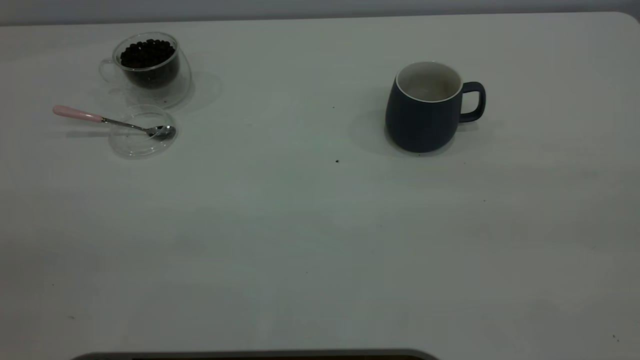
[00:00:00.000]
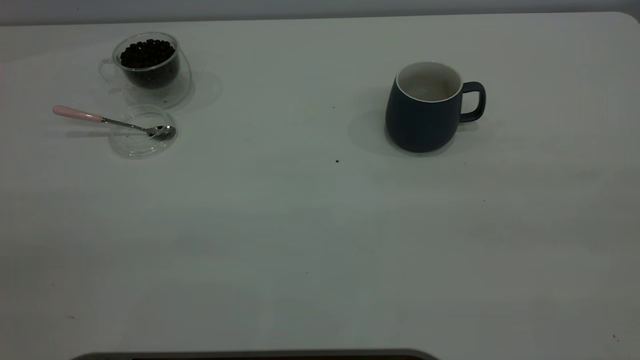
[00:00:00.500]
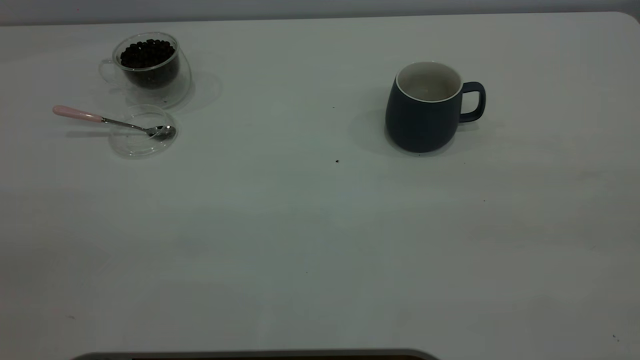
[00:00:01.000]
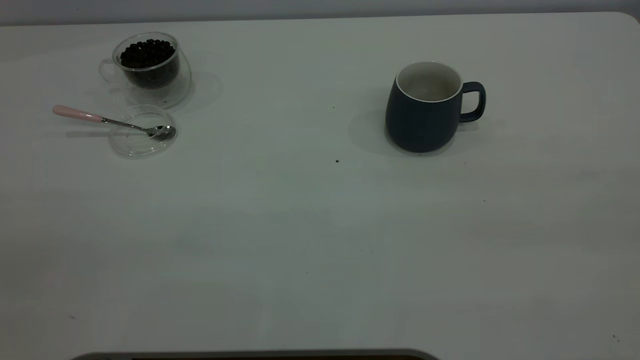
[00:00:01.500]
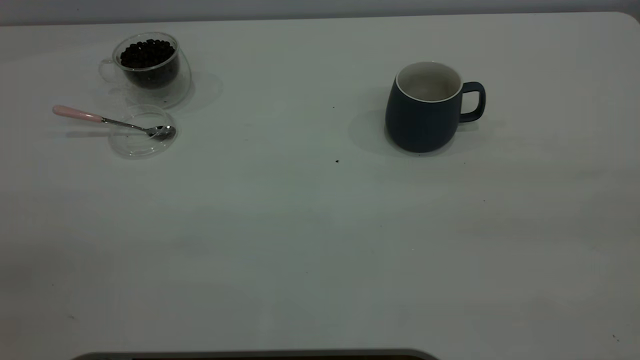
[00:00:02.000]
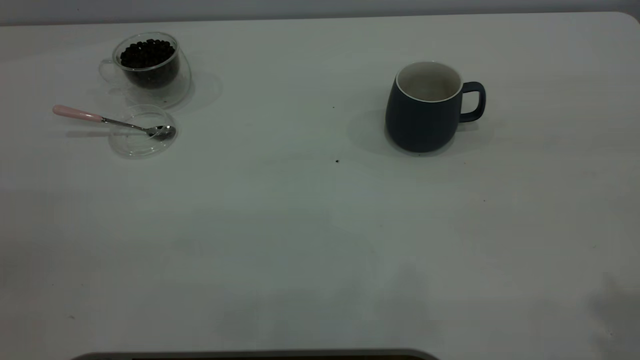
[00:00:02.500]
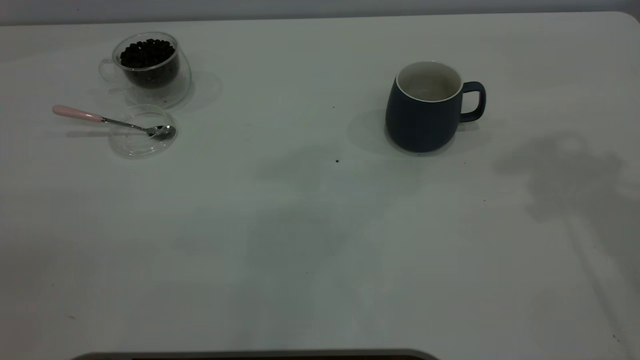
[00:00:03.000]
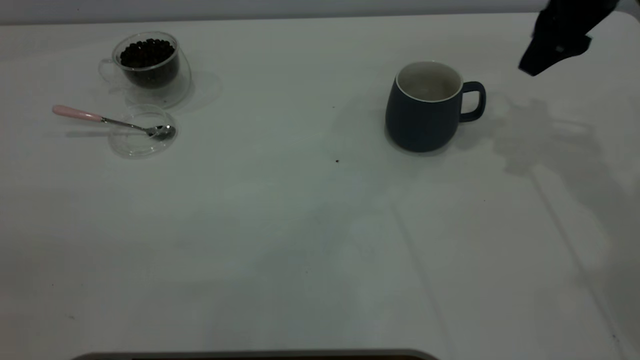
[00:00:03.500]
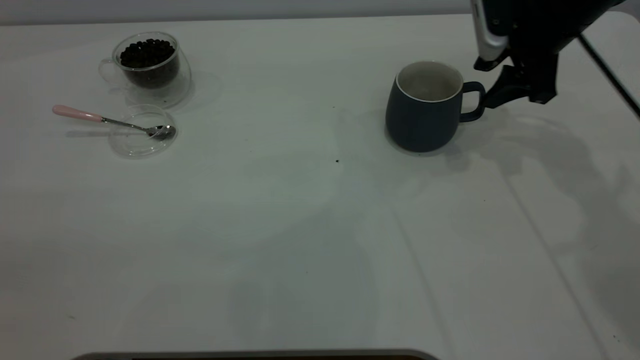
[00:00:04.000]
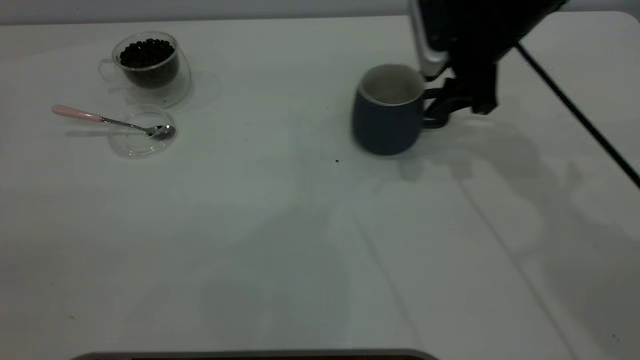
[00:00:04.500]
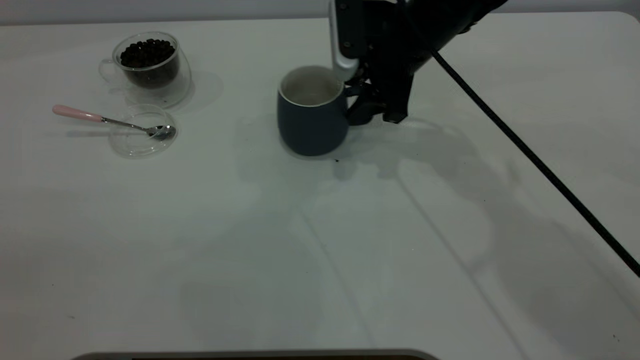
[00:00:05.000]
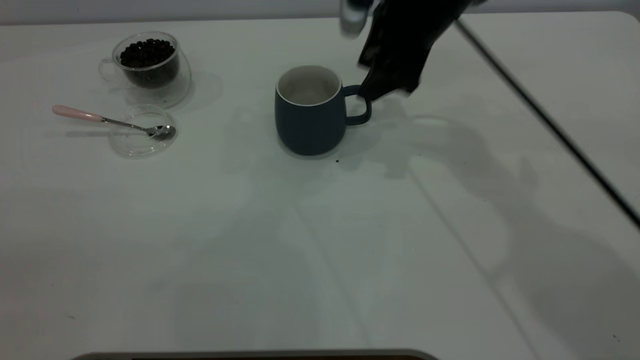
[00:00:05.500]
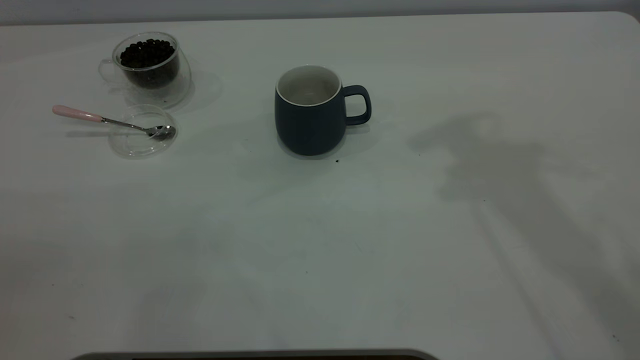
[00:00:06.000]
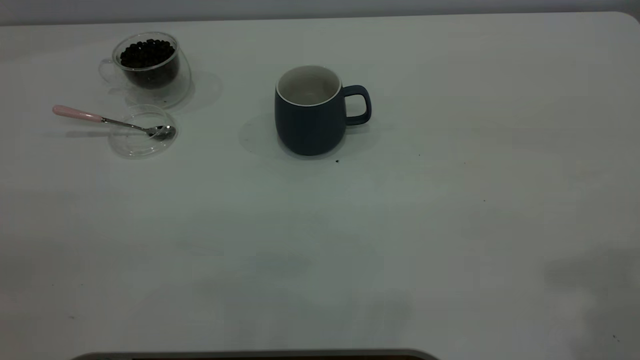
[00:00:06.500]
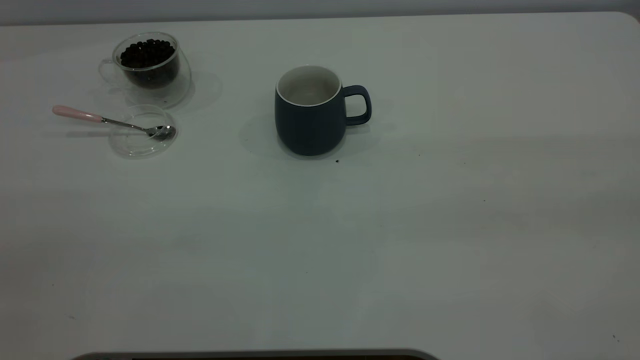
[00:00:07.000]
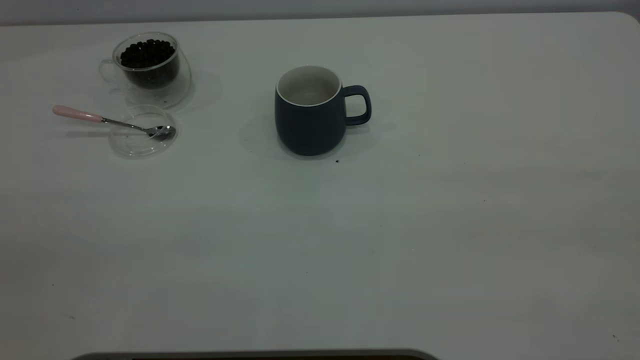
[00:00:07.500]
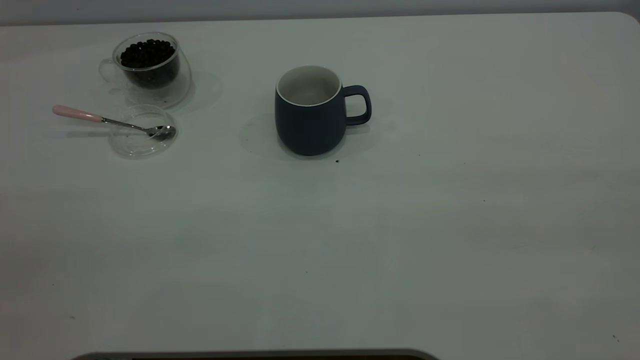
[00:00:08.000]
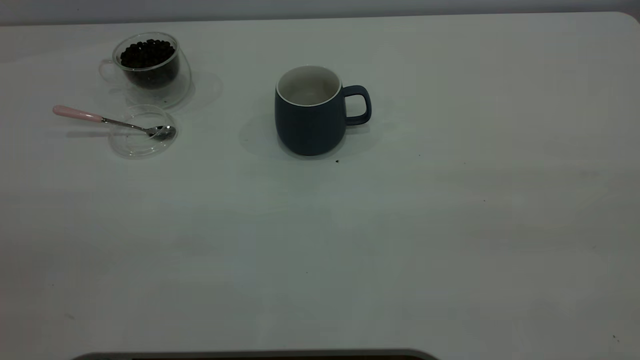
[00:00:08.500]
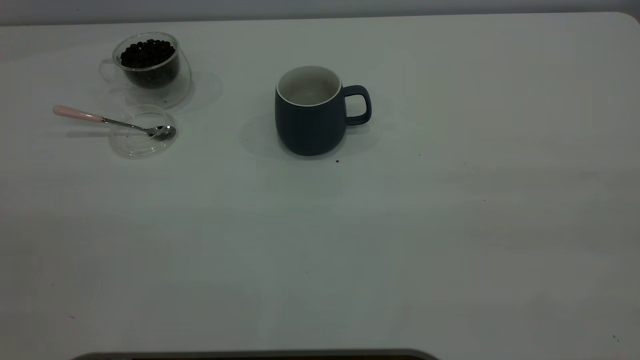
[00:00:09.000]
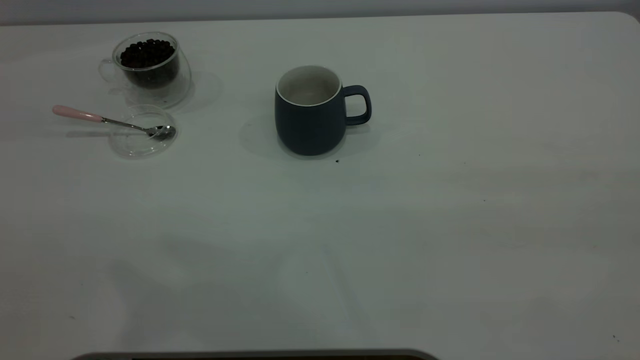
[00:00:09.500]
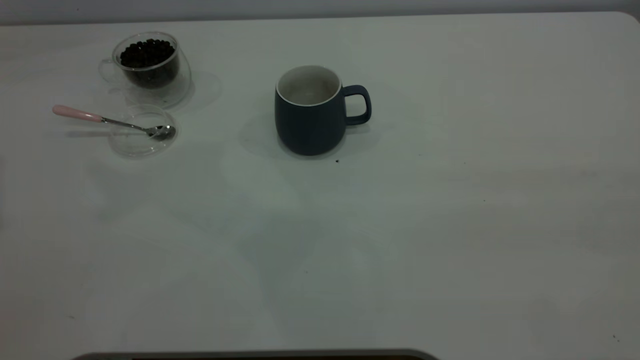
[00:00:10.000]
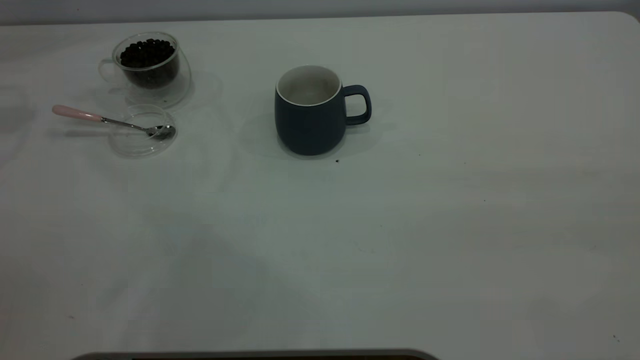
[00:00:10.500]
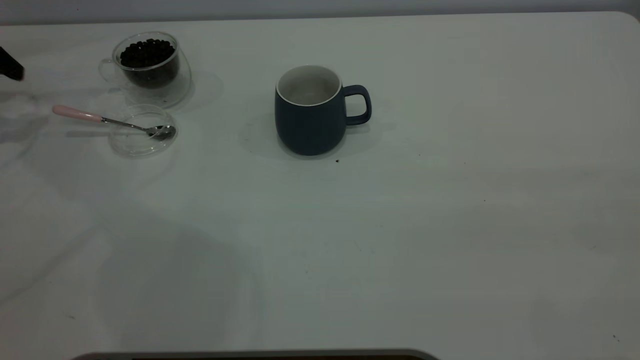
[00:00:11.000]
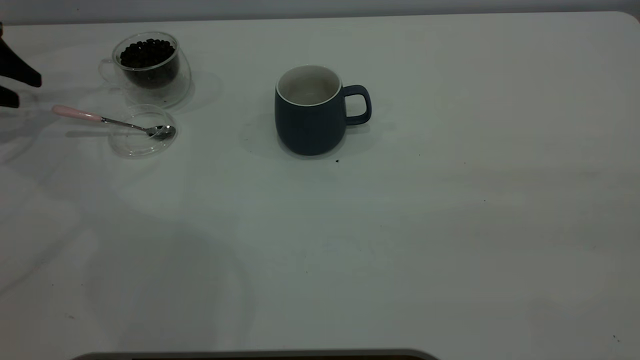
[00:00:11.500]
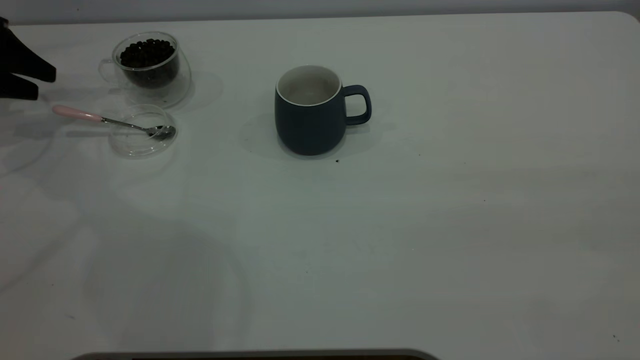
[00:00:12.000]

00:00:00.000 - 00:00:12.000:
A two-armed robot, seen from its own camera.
Task of the whole recording: the right gripper place the grey cup in the center of the table, the left gripper take the pink spoon from the cup lid and scoop out the coffee beans from the coffee cup and put them into the grey cup, the left gripper put the spoon back into the cup lid.
Step, 00:00:00.000 - 00:00:05.500: Move the cup to the center of view.
00:00:00.000 - 00:00:02.000: Both grippers stay put.
00:00:02.000 - 00:00:04.000: The right gripper shifts approximately 50 cm forward and downward.
00:00:04.000 - 00:00:06.000: The right gripper is displaced upward by about 25 cm.
00:00:10.000 - 00:00:12.000: The left gripper travels downward and forward by roughly 30 cm.

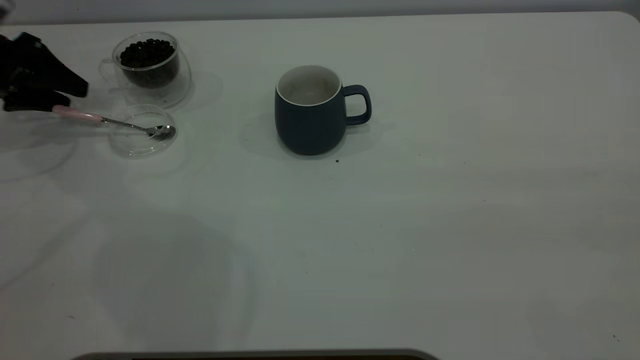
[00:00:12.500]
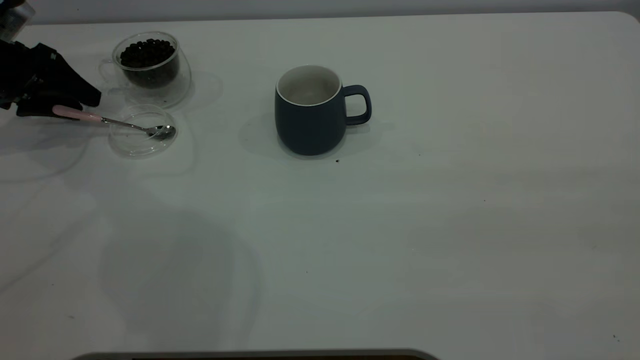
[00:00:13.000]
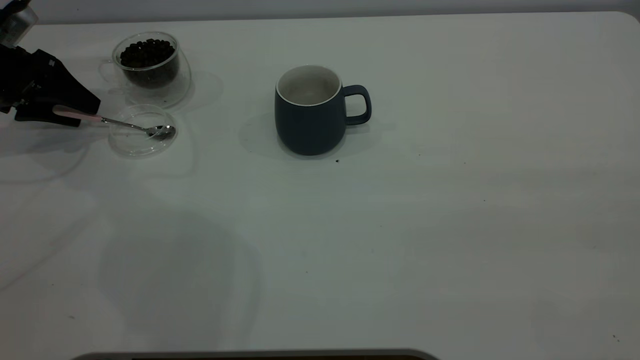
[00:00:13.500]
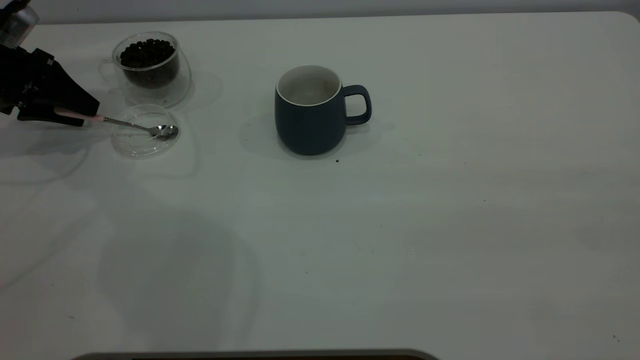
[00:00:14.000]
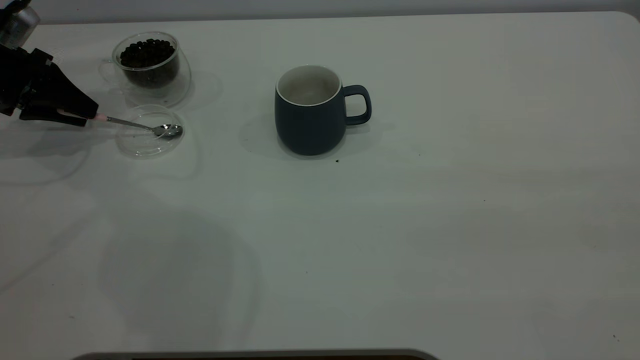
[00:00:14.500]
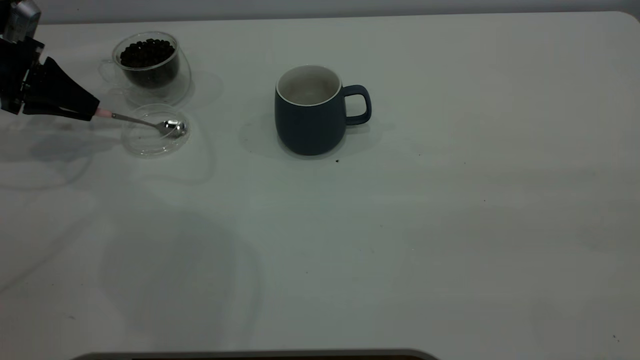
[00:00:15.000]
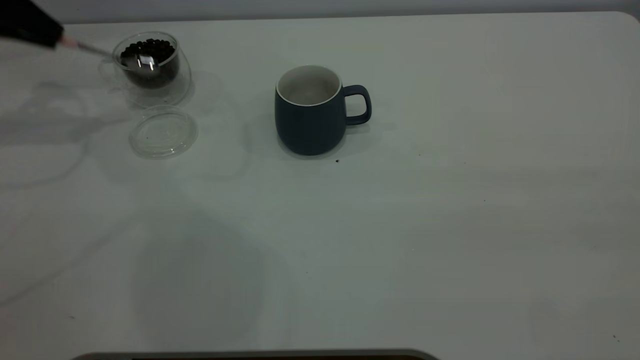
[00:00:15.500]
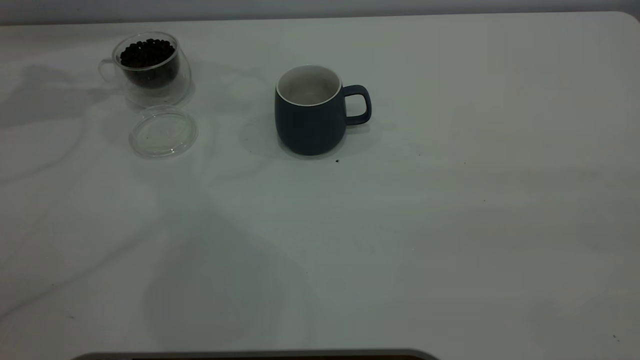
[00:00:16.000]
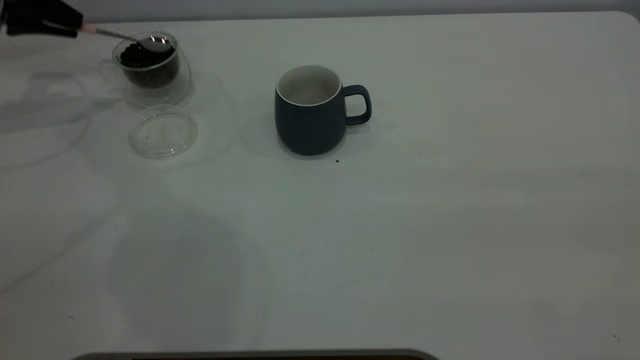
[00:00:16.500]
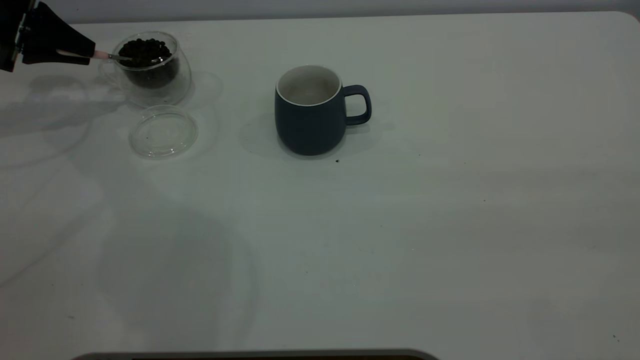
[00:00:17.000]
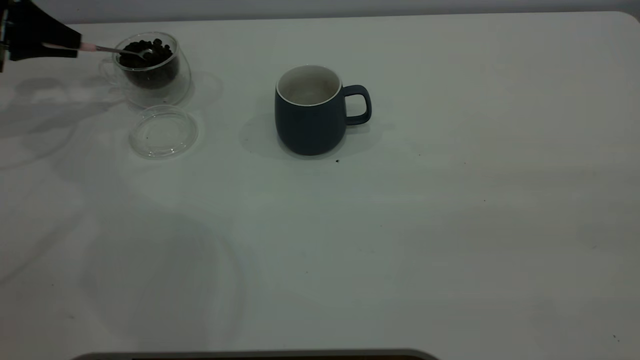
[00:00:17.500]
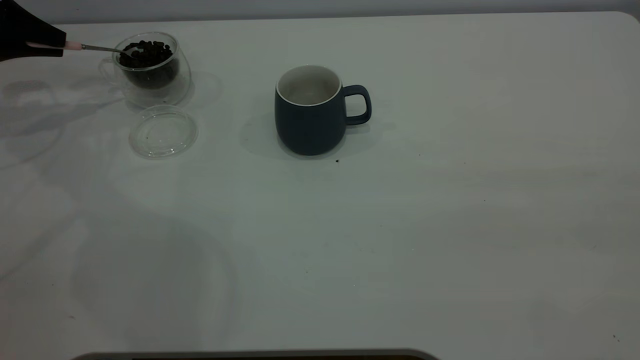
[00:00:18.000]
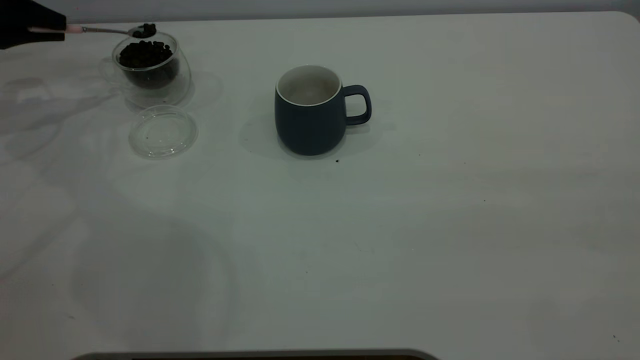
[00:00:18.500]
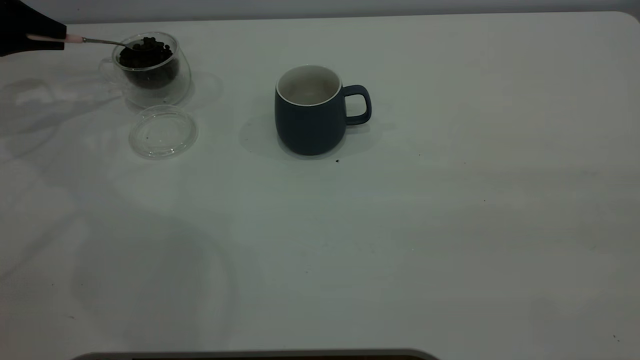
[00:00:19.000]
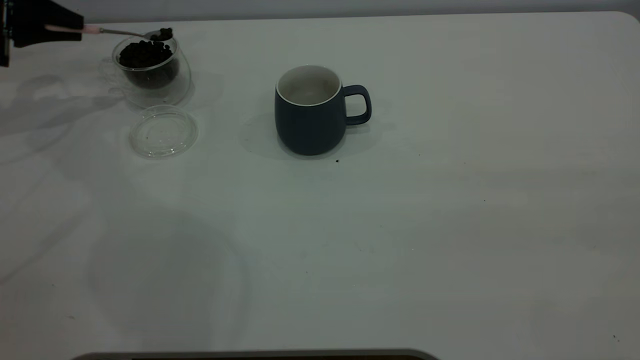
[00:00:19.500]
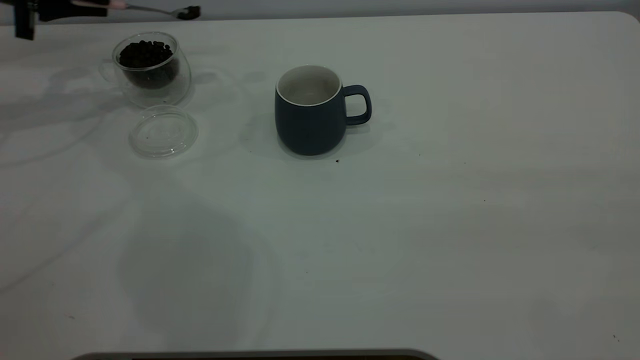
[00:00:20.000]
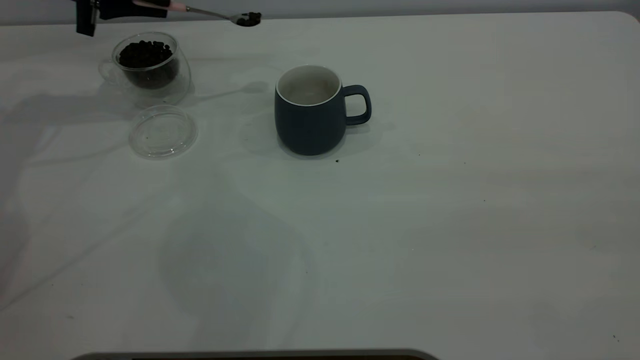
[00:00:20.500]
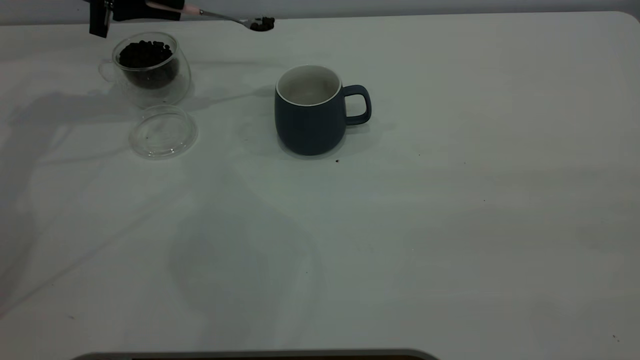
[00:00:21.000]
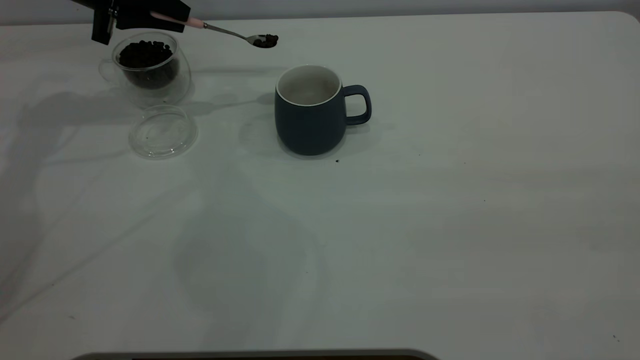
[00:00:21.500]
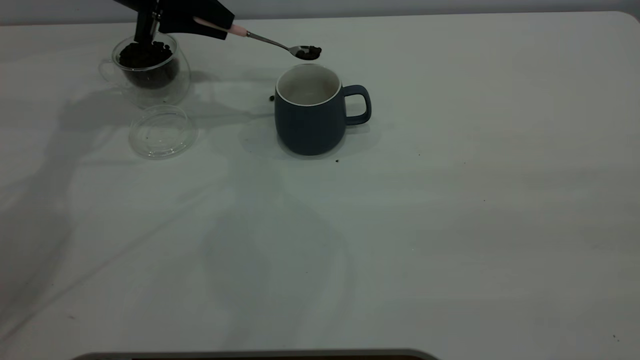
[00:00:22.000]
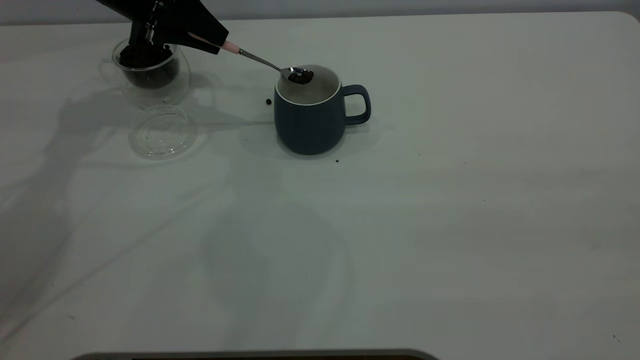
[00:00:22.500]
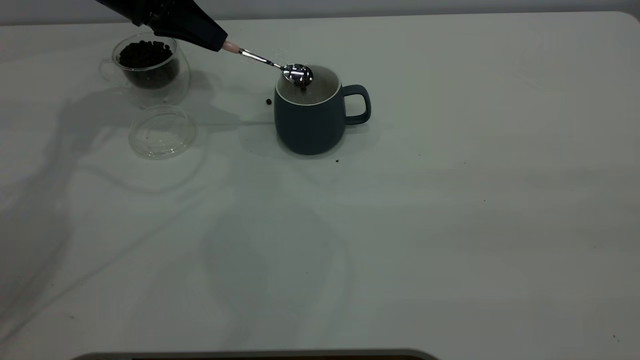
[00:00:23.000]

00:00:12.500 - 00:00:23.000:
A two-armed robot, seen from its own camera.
Task of the whole recording: the right gripper place the grey cup in the center of the table, the left gripper take the pink spoon from the cup lid and scoop out the coffee beans from the coffee cup and put them into the grey cup, the left gripper put the spoon back into the cup lid.
Step, 00:00:12.500 - 00:00:15.000: Pick up the spoon.
00:00:12.500 - 00:00:14.500: The left gripper closes.
00:00:14.500 - 00:00:16.500: The left gripper travels upward by roughly 10 cm, and closes up.
00:00:16.500 - 00:00:19.000: There are only small adjustments of the grippers.
00:00:19.000 - 00:00:21.000: The left gripper travels to the right by about 15 cm.
00:00:21.000 - 00:00:23.000: The left gripper heads to the right, covering some 5 cm.
